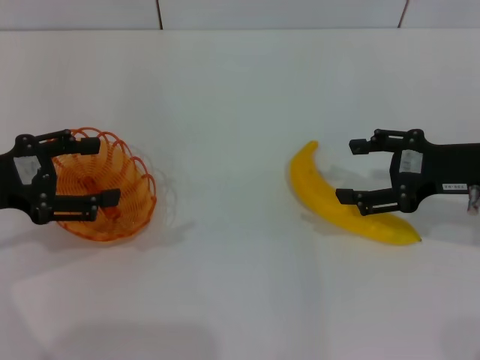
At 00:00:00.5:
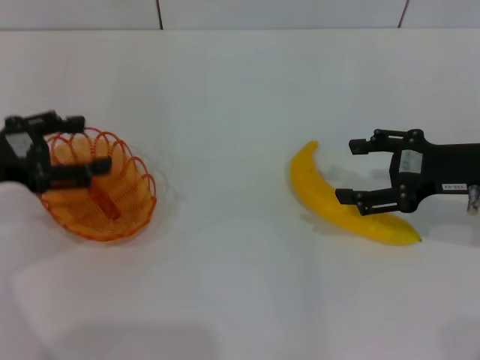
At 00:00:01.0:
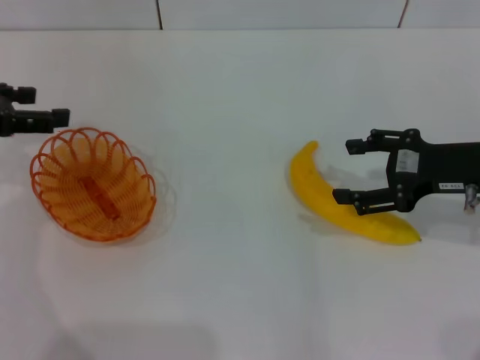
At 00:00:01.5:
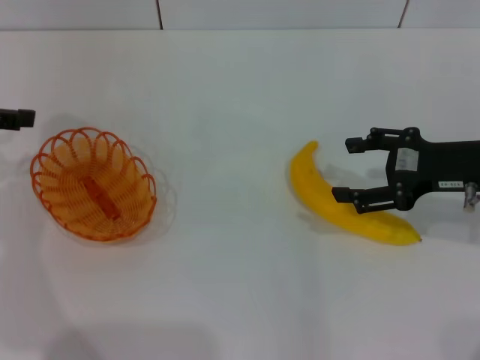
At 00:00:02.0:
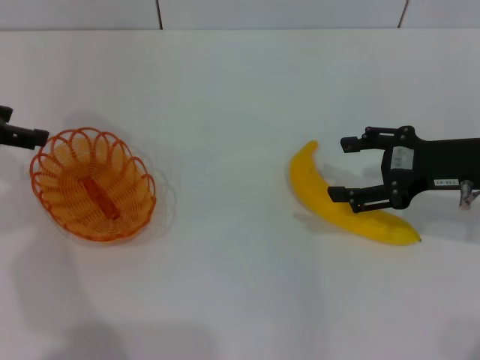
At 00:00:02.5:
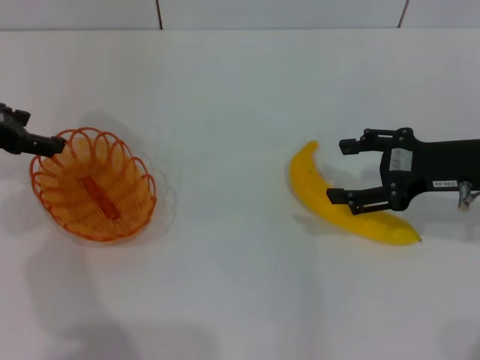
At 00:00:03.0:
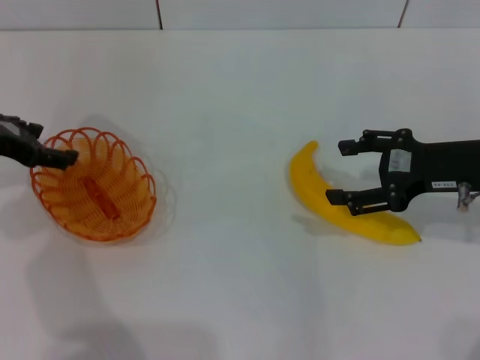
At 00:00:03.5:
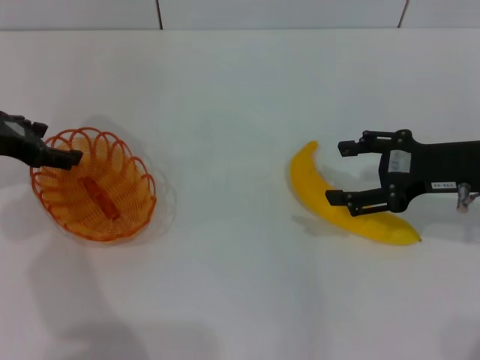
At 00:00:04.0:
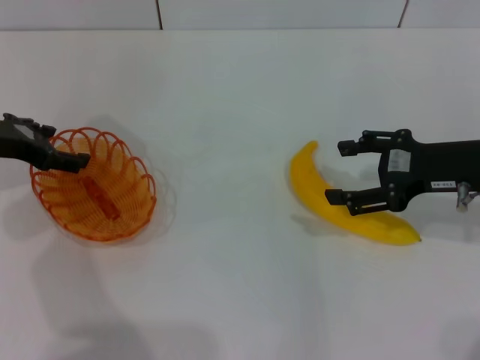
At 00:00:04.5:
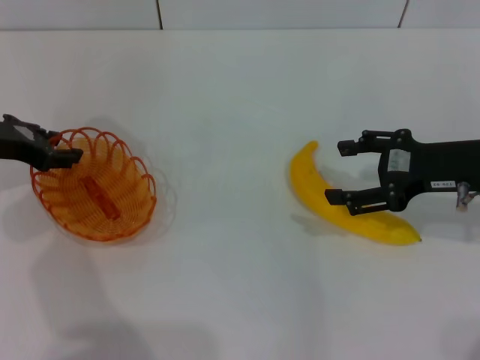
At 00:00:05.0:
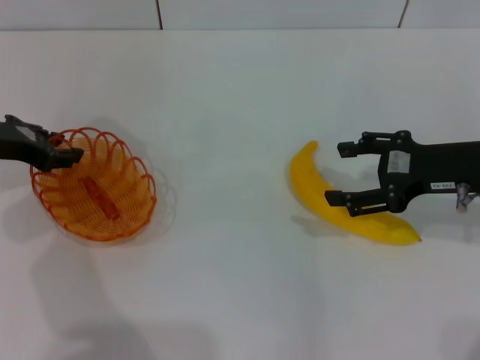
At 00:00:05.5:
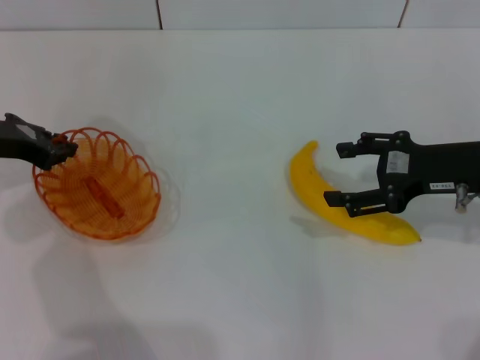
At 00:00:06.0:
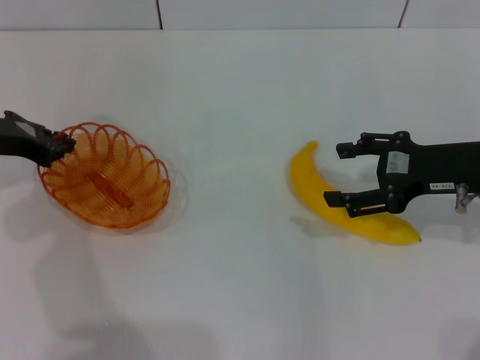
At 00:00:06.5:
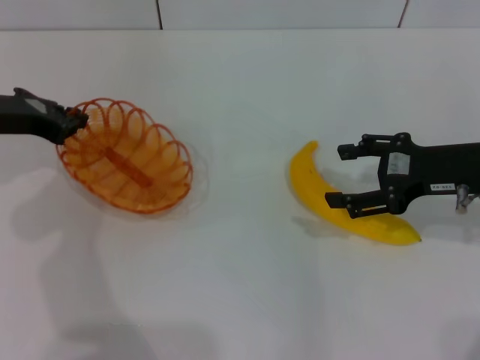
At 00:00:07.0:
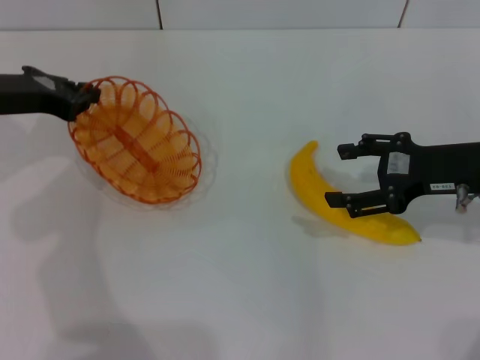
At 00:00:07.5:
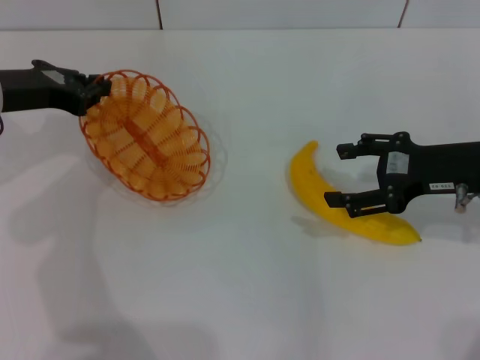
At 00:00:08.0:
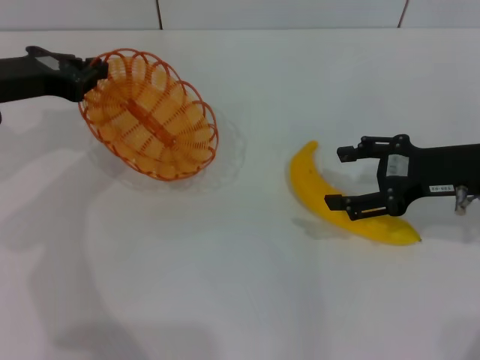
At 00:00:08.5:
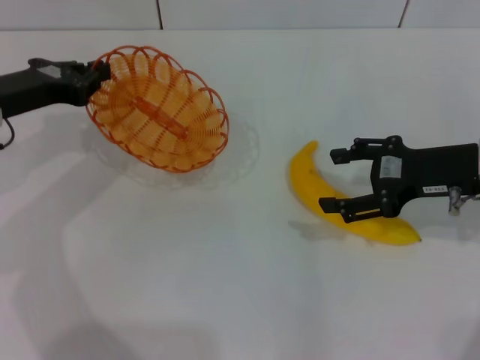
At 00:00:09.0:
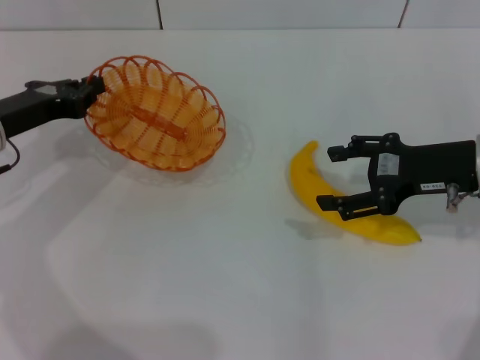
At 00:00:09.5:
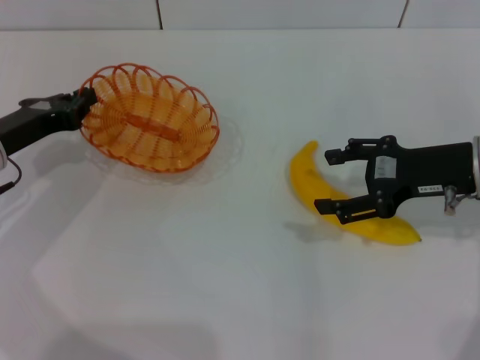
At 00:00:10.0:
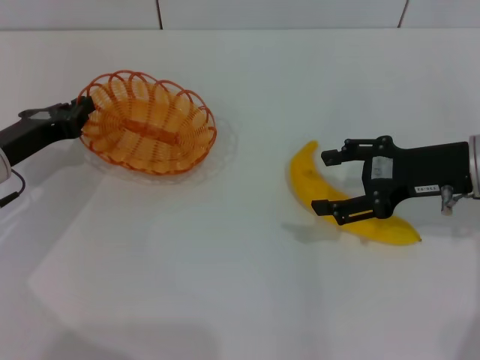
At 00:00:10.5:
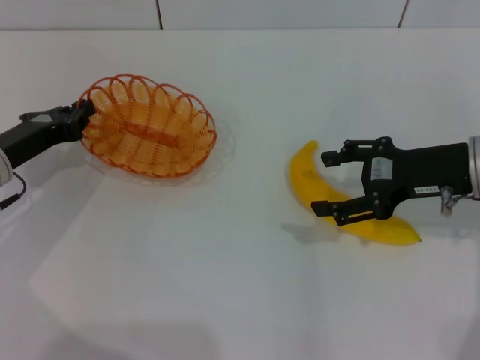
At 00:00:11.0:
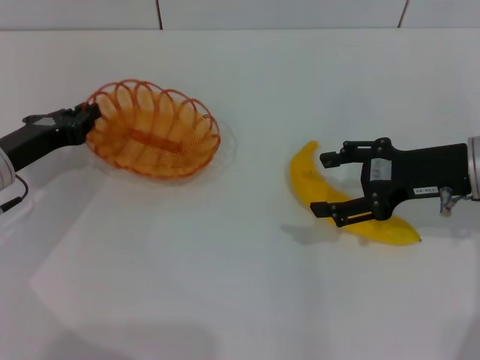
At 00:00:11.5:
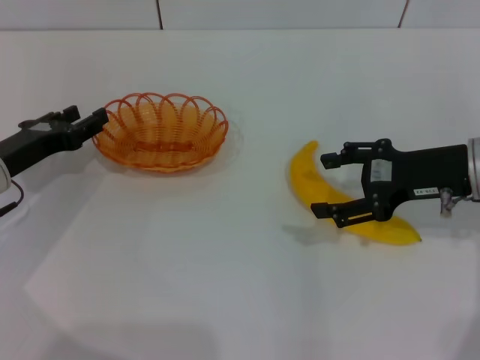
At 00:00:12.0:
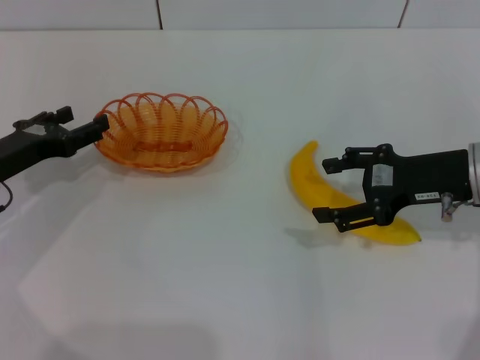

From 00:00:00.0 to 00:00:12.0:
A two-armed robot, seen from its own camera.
Step, from 00:00:00.0 to 00:00:06.0: Pick up the basket with the left gripper.
Step, from 00:00:07.0 to 00:00:11.5: Place the basket in the center of view with the left gripper.
From 00:00:00.0 to 00:00:02.0: The left gripper shifts approximately 10 cm forward.
From 00:00:02.0 to 00:00:04.0: The left gripper heads downward, covering approximately 5 cm.
From 00:00:04.0 to 00:00:06.0: The left gripper closes up.
From 00:00:08.0 to 00:00:10.0: The left gripper goes some 10 cm downward.
From 00:00:10.0 to 00:00:12.0: The left gripper opens.

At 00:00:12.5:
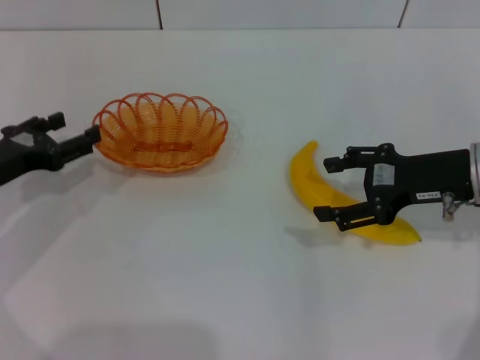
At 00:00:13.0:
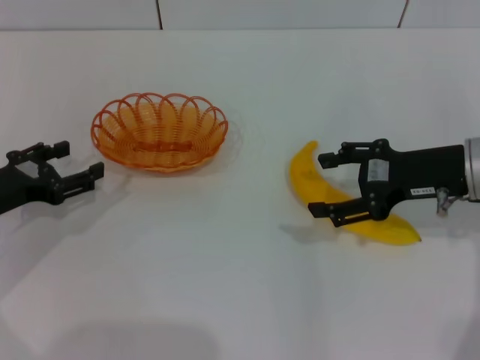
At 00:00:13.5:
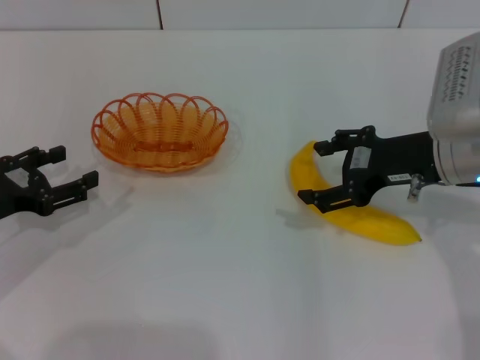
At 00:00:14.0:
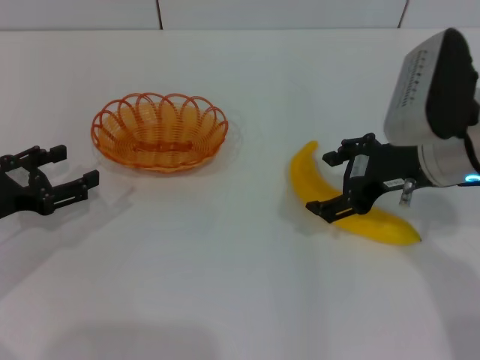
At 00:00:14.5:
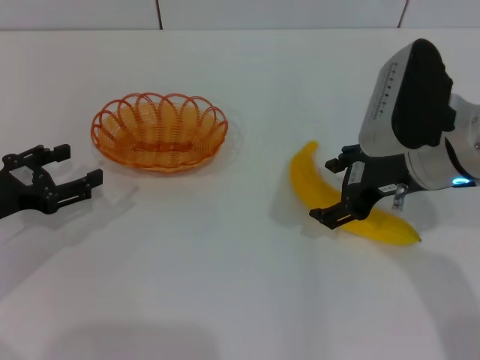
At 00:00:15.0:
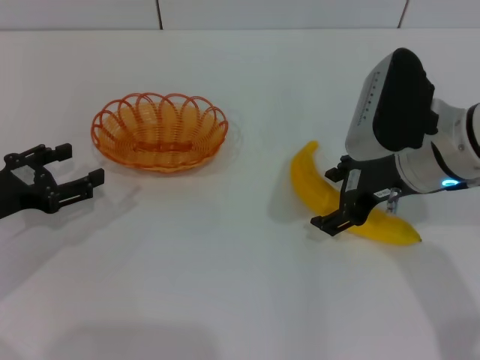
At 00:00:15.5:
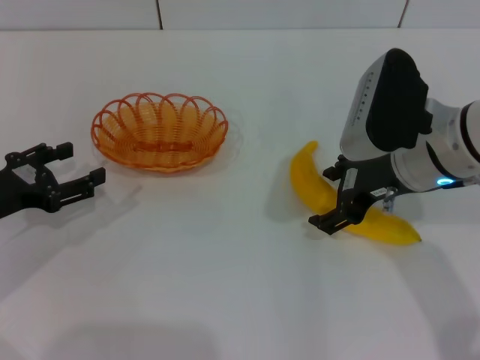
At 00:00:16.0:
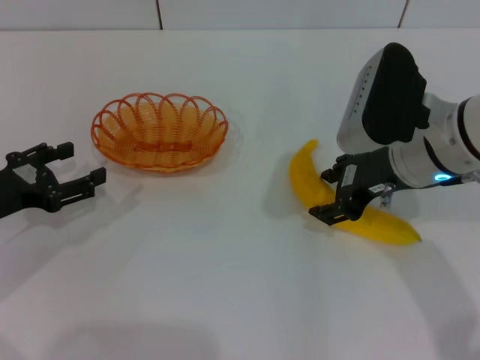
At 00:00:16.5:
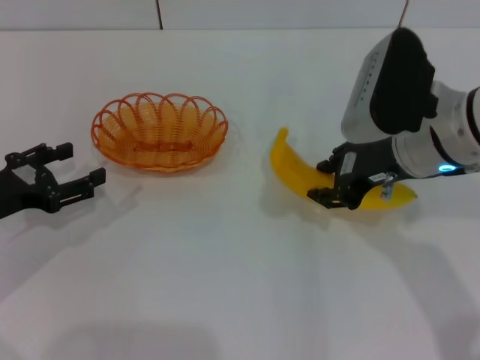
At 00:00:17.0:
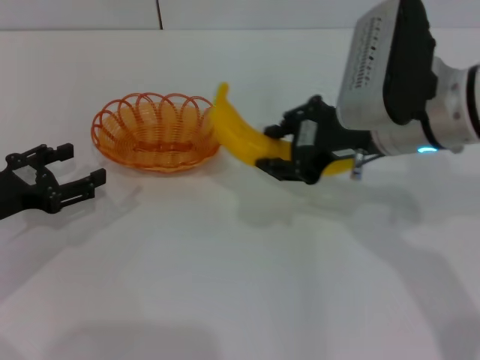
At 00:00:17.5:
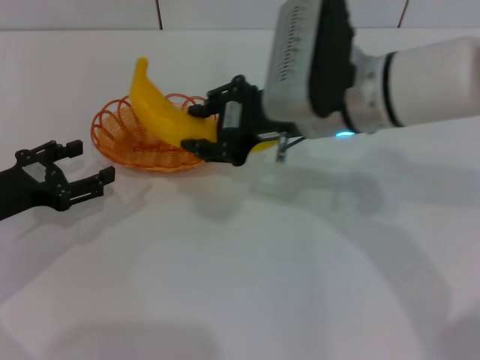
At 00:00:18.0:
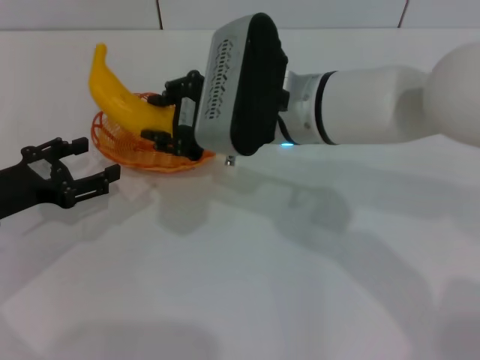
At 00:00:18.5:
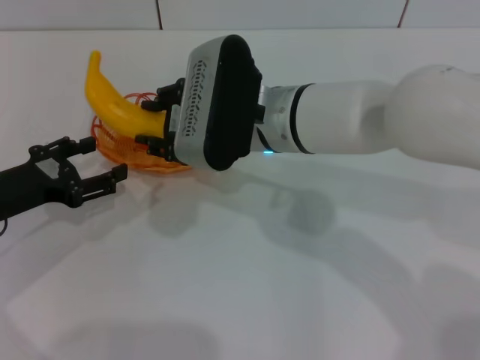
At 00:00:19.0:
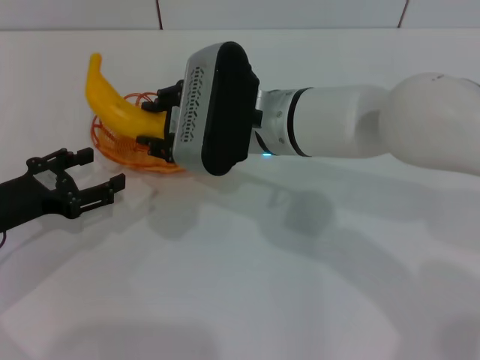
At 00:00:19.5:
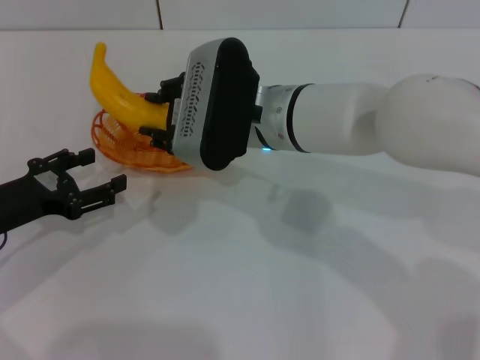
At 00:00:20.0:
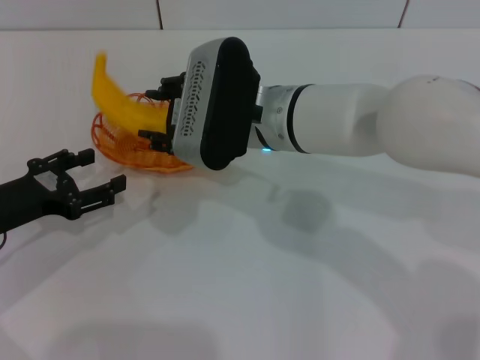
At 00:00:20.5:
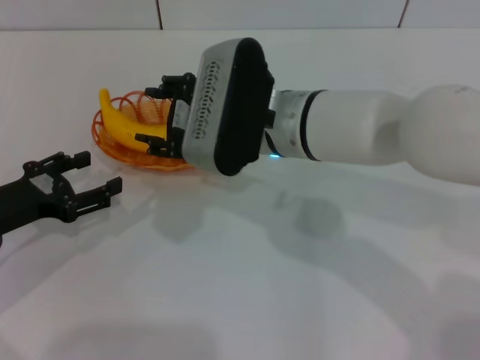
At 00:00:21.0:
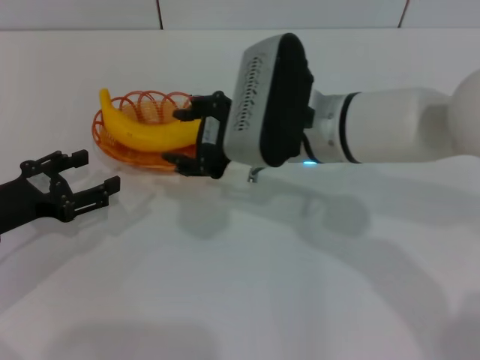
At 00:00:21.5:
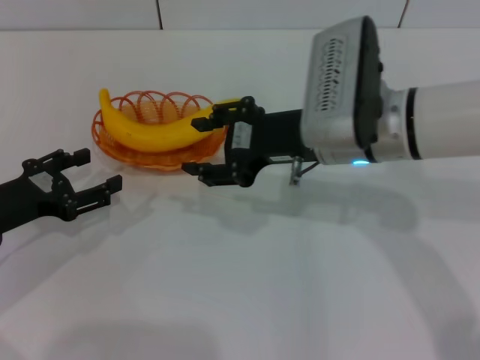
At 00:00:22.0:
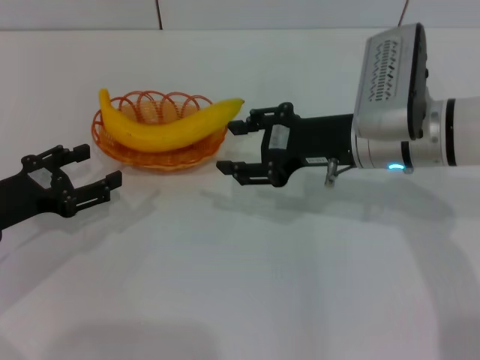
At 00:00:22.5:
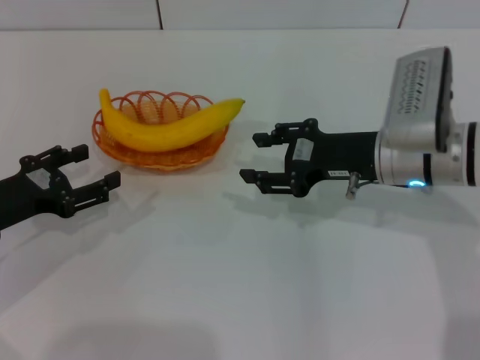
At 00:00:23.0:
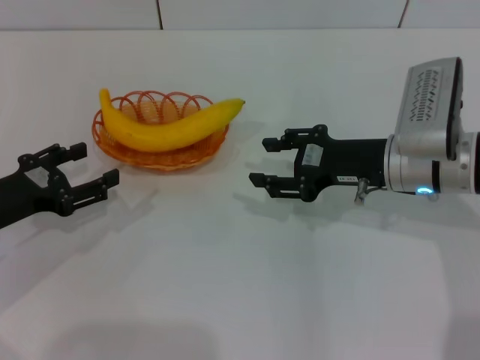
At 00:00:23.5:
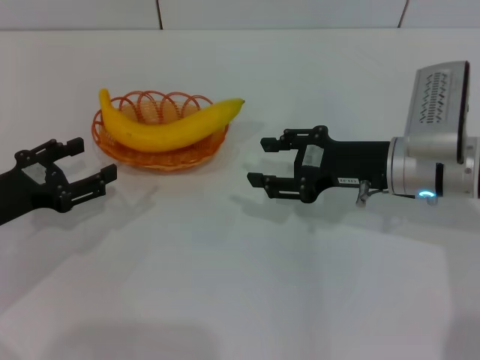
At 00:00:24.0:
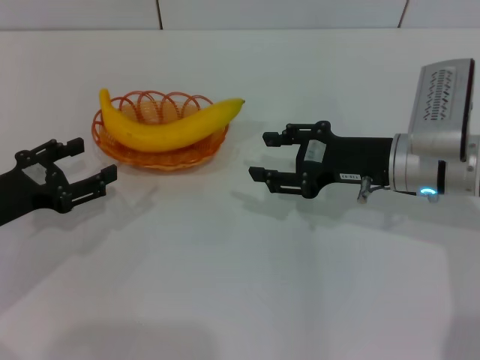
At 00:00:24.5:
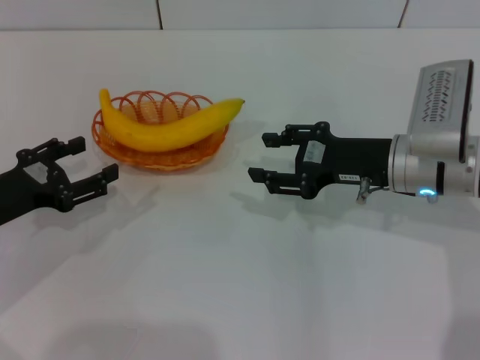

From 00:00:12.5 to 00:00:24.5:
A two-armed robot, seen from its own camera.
Step, from 00:00:12.5 to 00:00:16.5: Pick up the banana with the right gripper.
Step, from 00:00:17.0 to 00:00:21.0: Place the banana into the basket with the right gripper.
From 00:00:12.5 to 00:00:14.5: The right gripper shifts about 5 cm to the left.
From 00:00:14.5 to 00:00:16.5: The right gripper closes up.
From 00:00:16.5 to 00:00:18.5: The right gripper travels to the left by roughly 15 cm.
From 00:00:18.5 to 00:00:20.5: The right gripper opens its fingers.
From 00:00:20.5 to 00:00:22.5: The right gripper travels to the right by about 15 cm.
From 00:00:22.5 to 00:00:24.5: The grippers move only a little.
